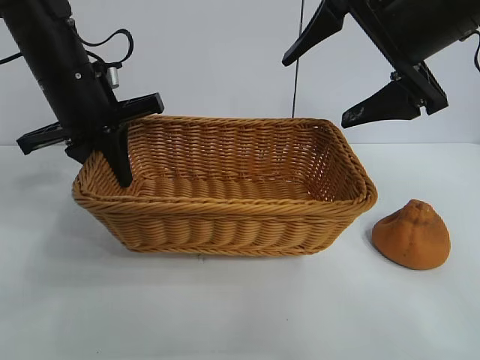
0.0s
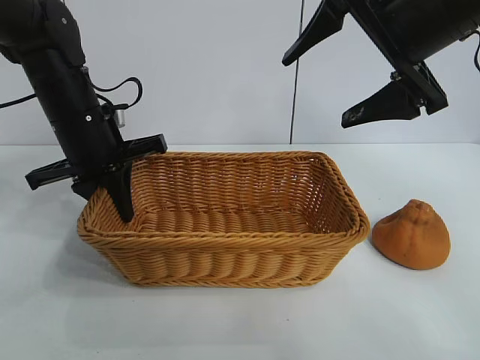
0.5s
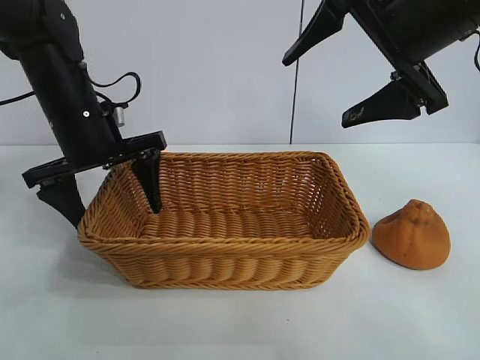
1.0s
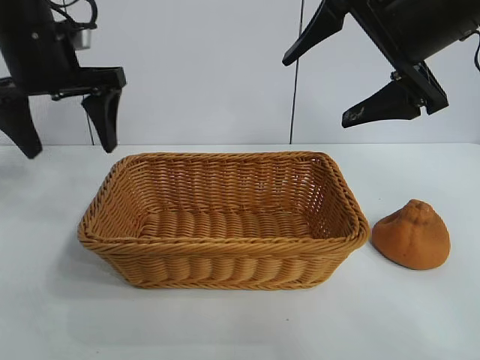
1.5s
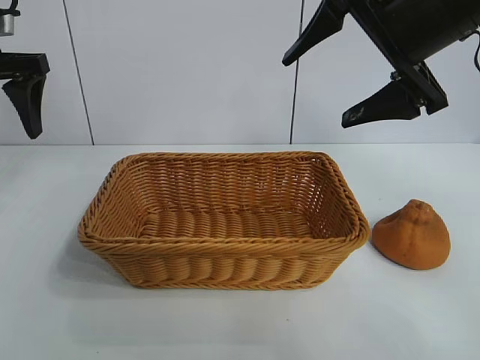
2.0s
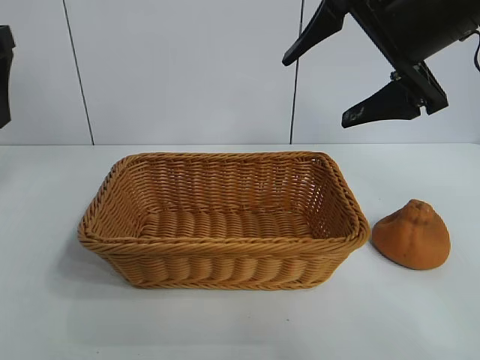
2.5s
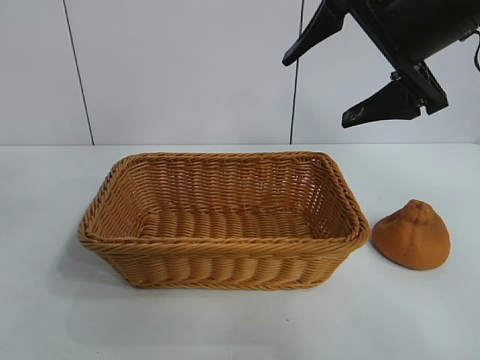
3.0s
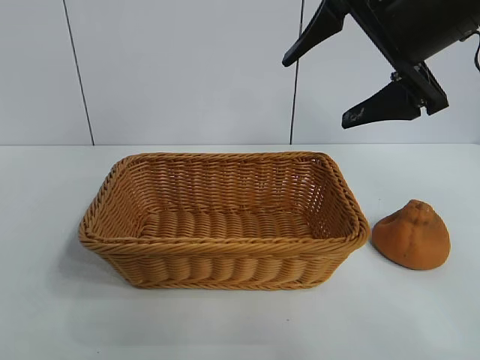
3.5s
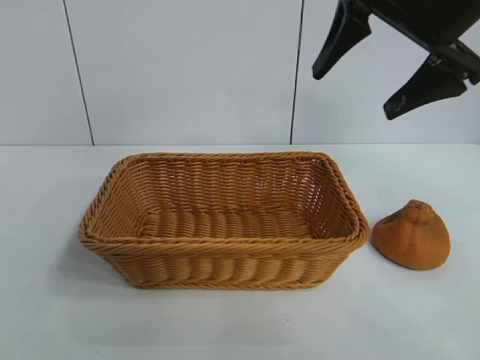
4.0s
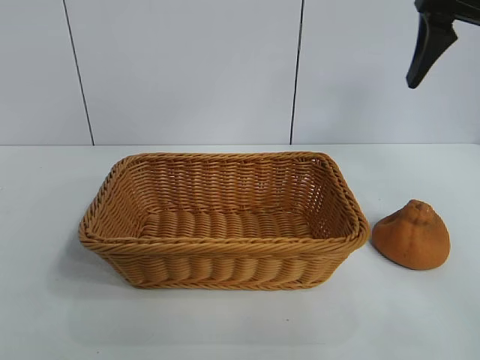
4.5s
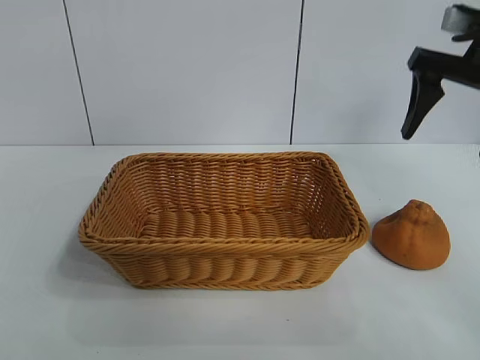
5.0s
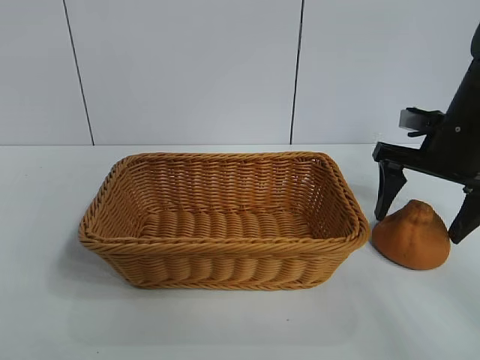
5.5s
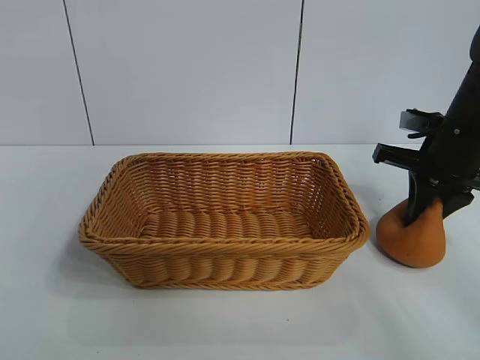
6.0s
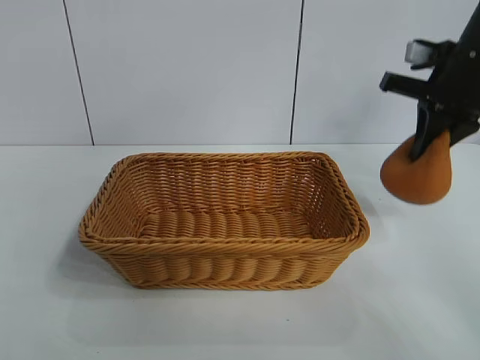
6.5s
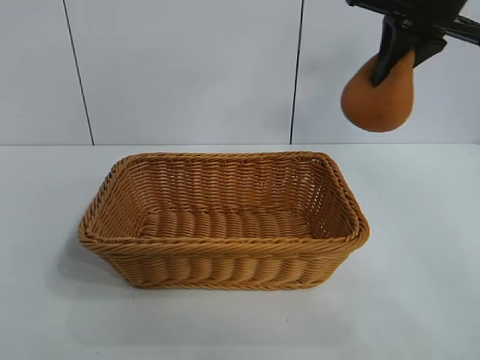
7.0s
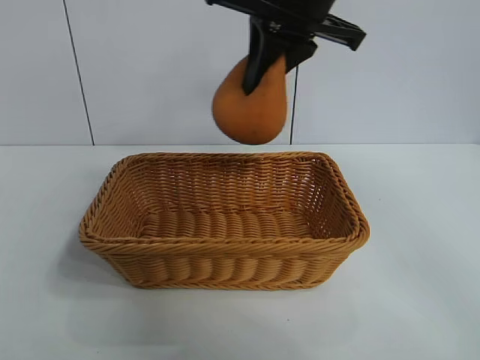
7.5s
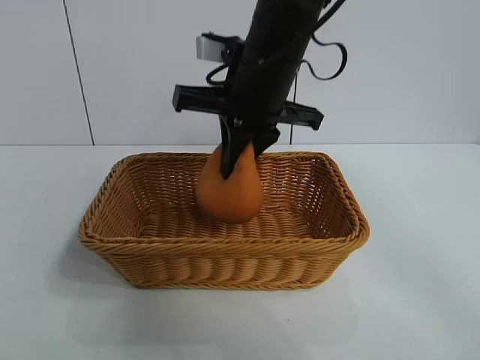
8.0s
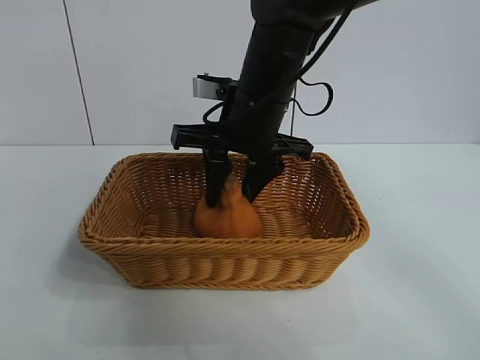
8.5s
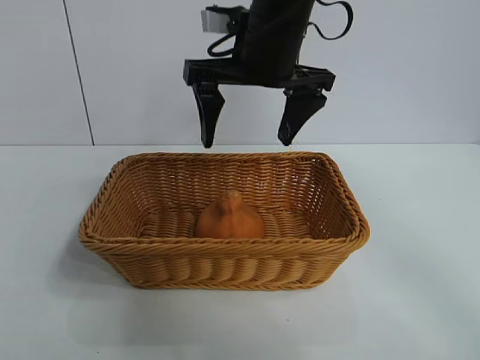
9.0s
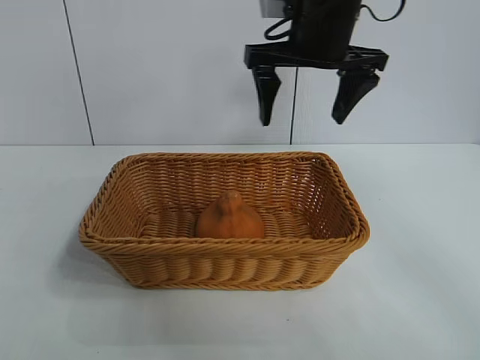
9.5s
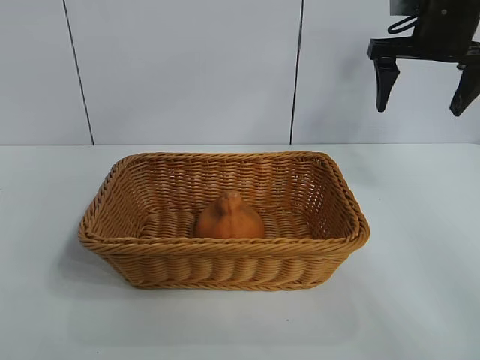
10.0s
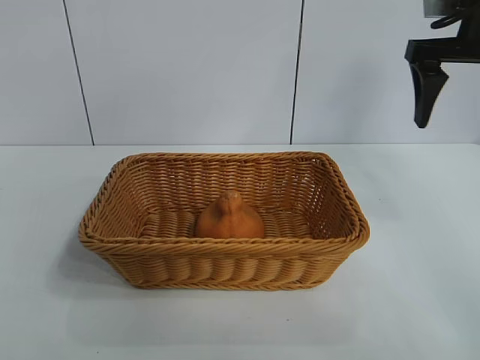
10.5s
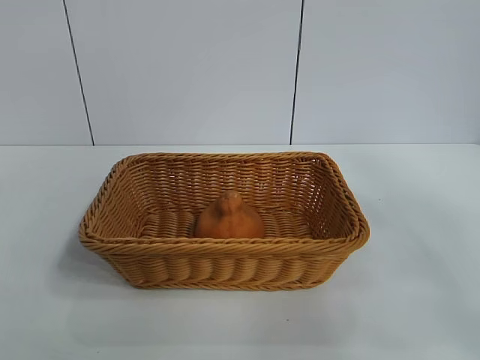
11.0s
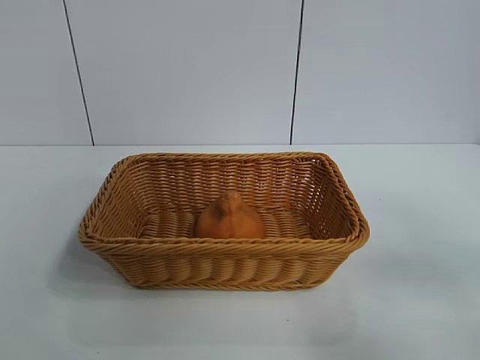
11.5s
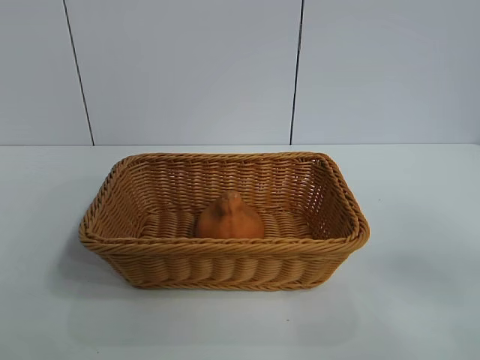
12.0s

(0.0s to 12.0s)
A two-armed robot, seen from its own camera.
Task of the whole recording: pick up the orange and put it into the basket.
Step, 2.0s - 6.0s: Grasp the orange with right gripper.
Step, 6.5s - 8.5s: Place the orange in the basket with right gripper.

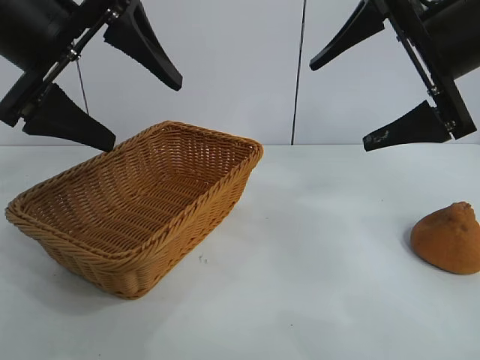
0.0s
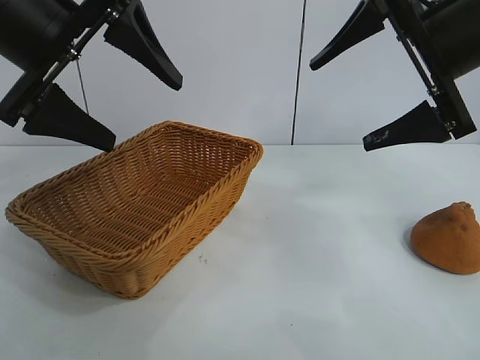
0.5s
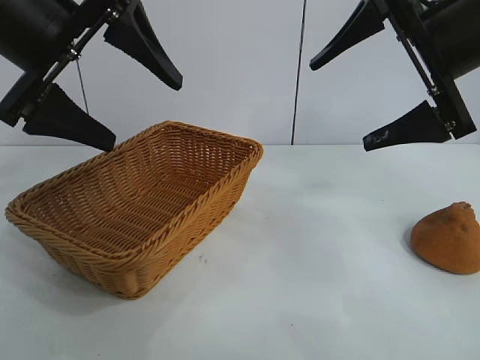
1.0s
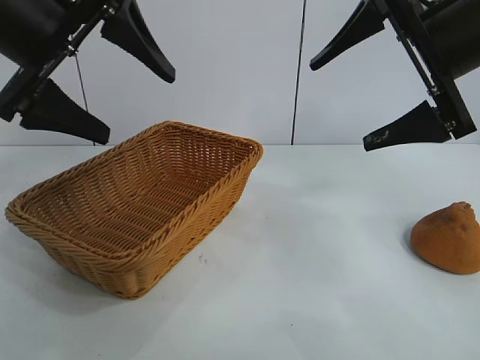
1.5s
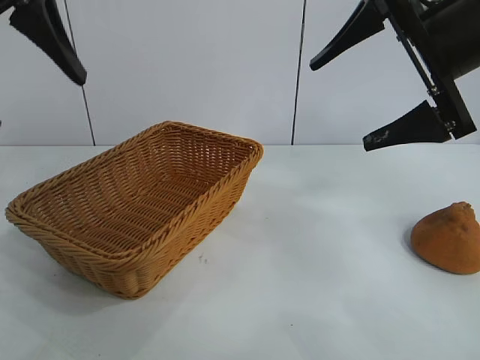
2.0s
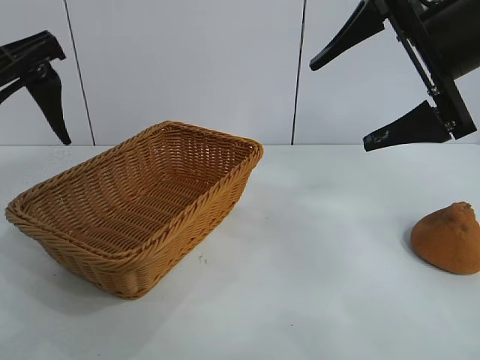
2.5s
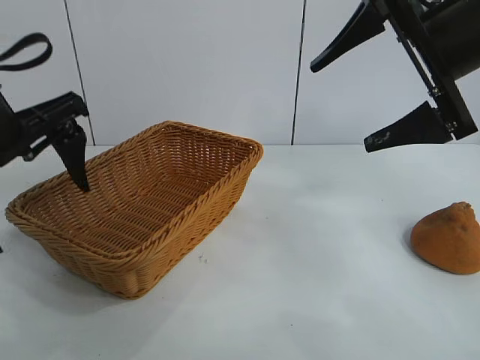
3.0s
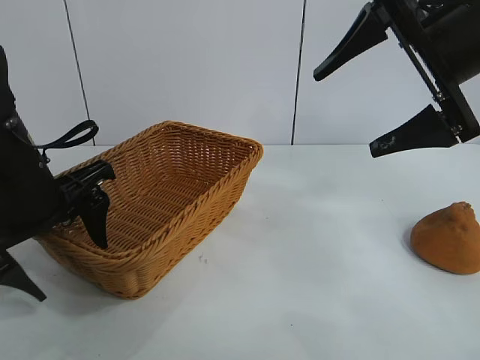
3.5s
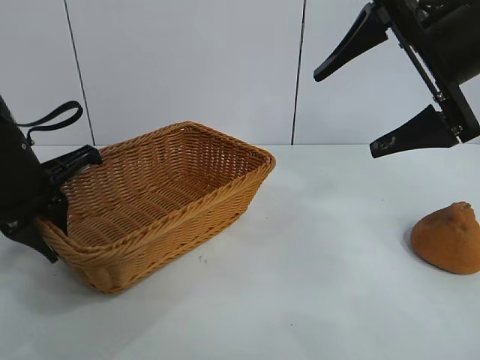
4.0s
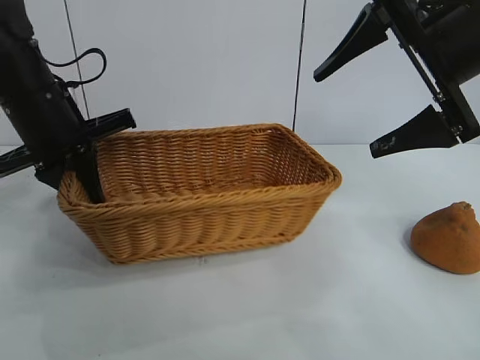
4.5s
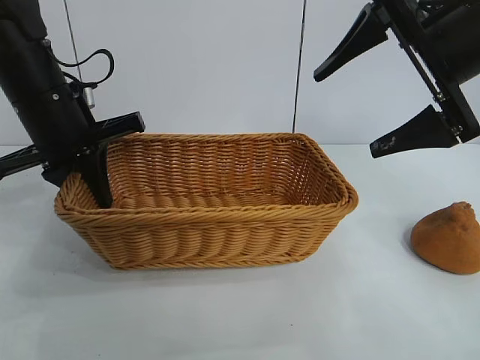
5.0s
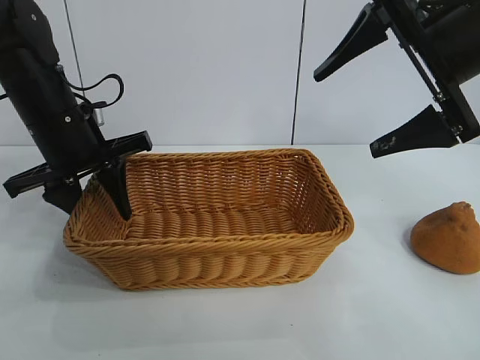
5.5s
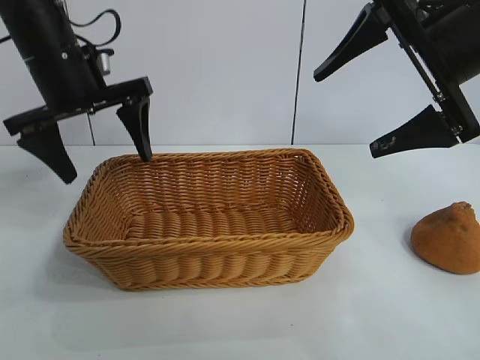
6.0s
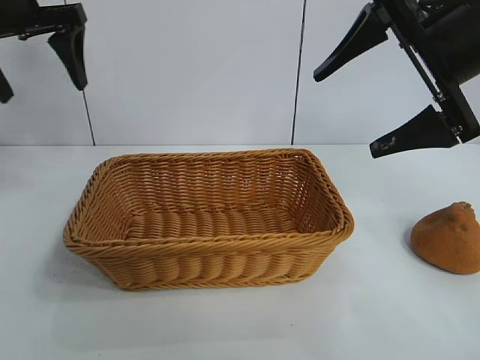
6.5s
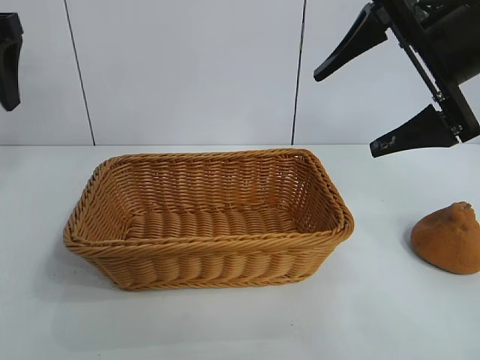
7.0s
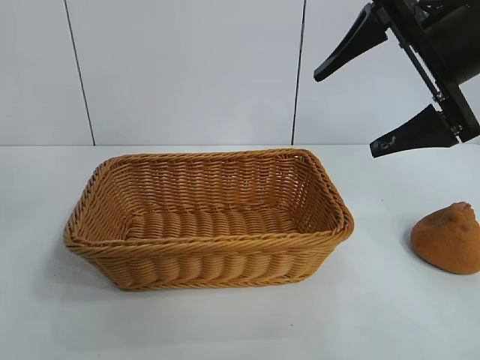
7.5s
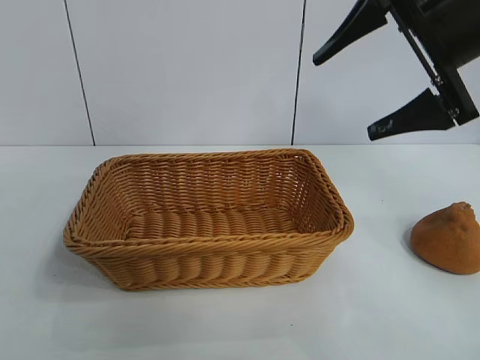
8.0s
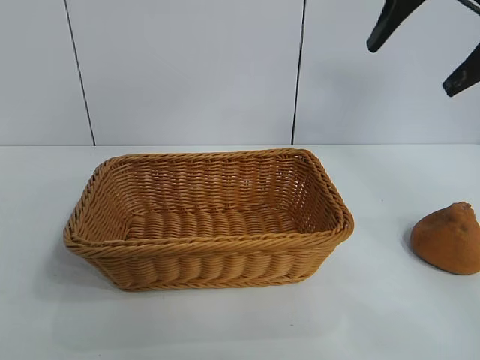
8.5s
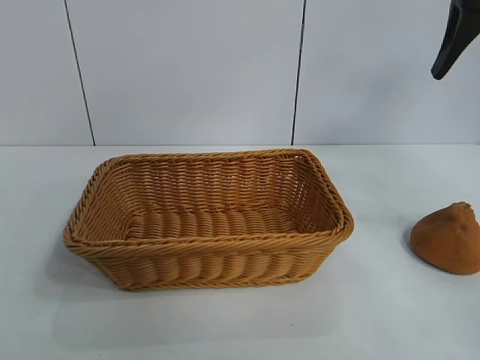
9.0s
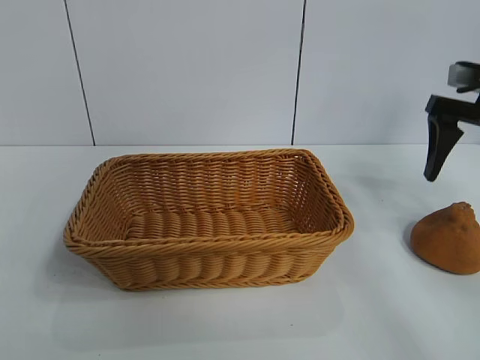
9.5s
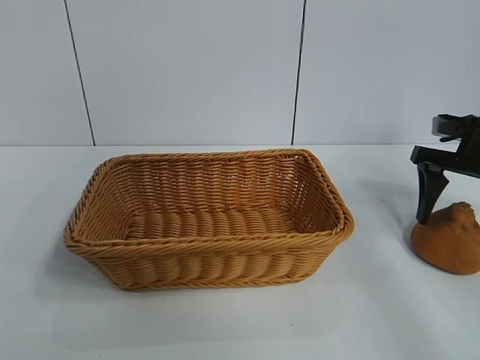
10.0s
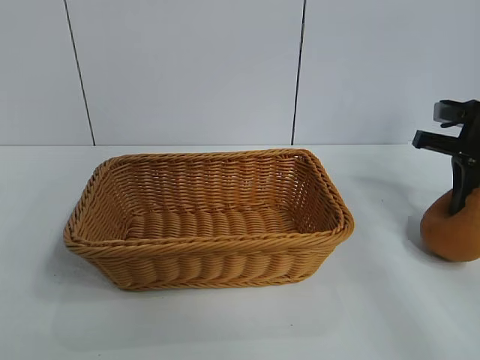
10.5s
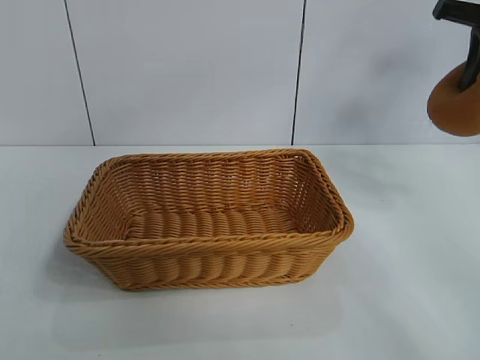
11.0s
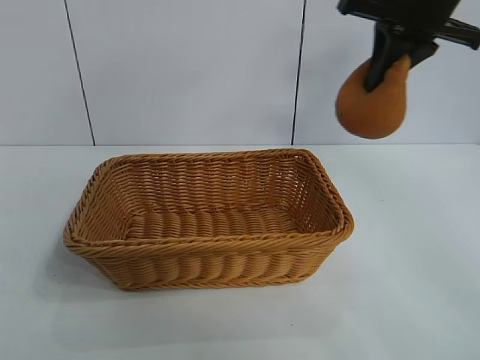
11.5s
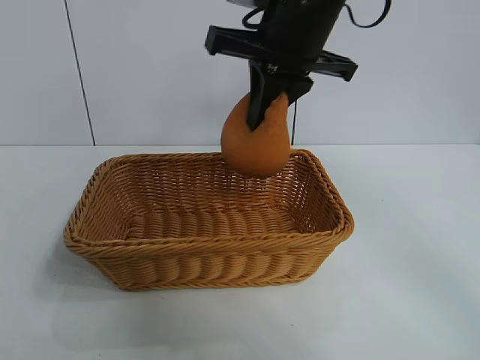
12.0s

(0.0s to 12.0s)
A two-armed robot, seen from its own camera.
Task of the whole recording: pick up the orange and put it into the basket.
Step, 1.5s - 4.0s: Grasp the basket with left gripper.
Step, 4.5s - 5.5s: Place the basket in the center of view with left gripper.
Step, 6.0s - 10.0s: Grasp the orange with right gripper.
